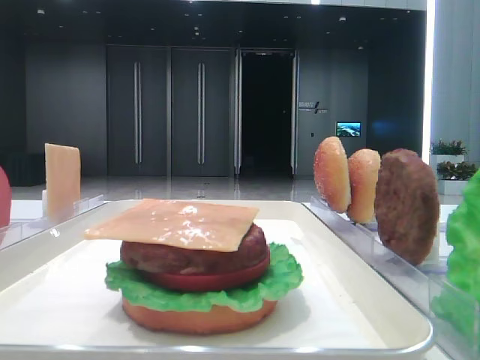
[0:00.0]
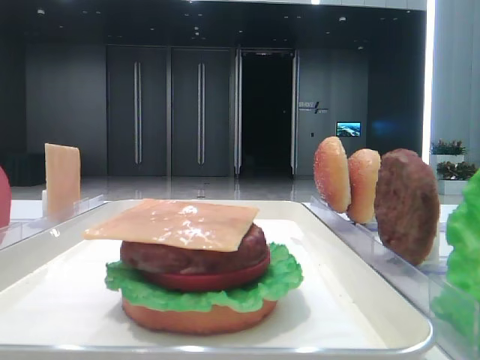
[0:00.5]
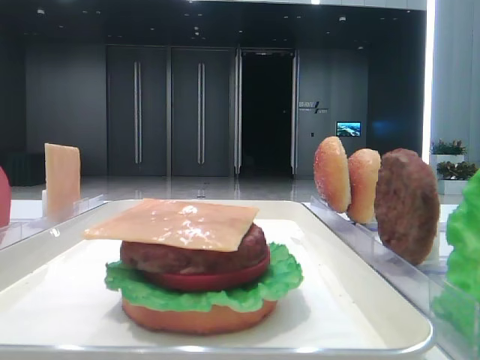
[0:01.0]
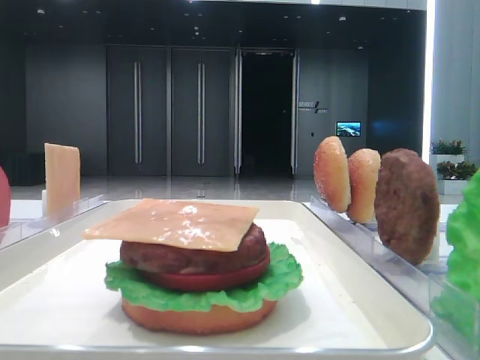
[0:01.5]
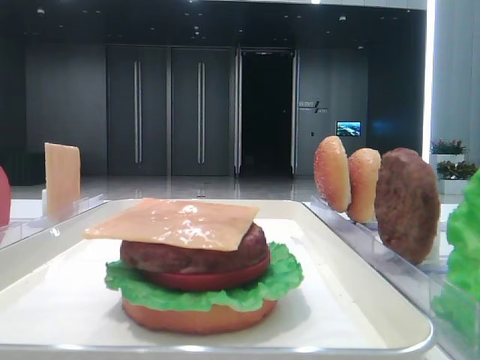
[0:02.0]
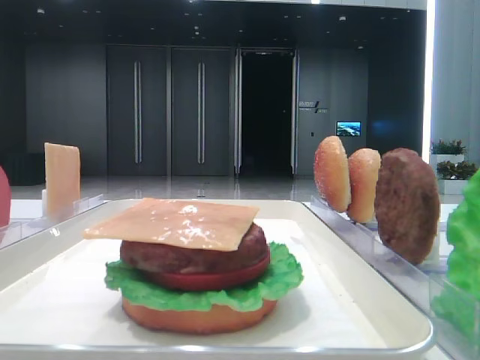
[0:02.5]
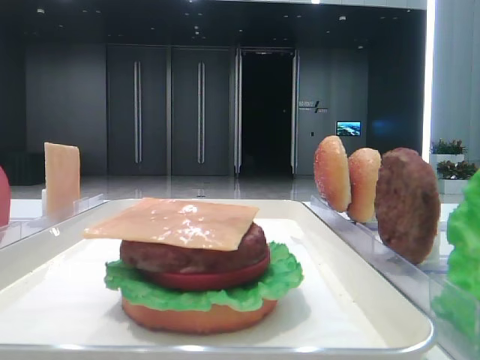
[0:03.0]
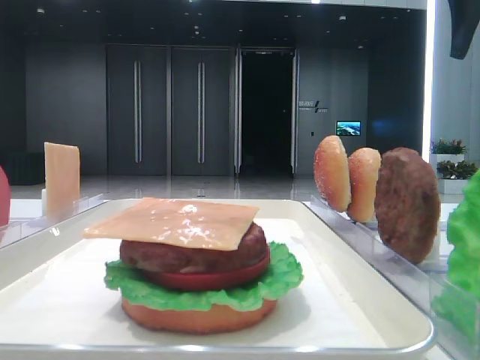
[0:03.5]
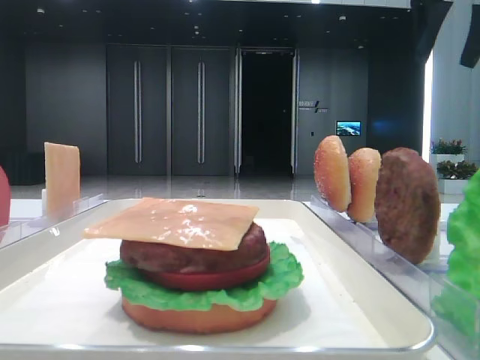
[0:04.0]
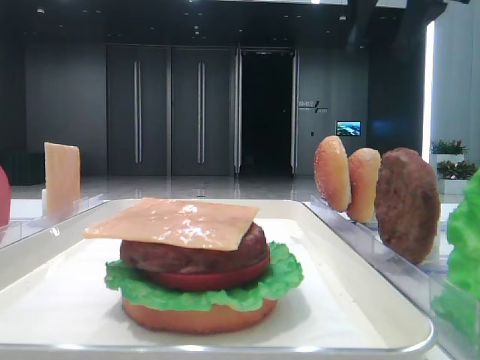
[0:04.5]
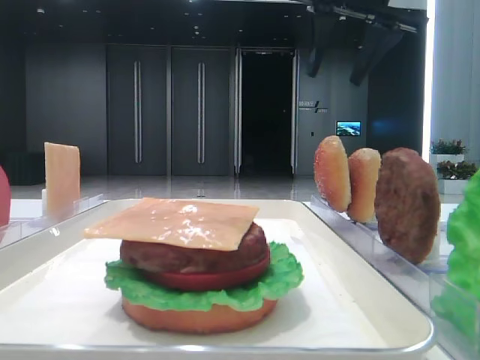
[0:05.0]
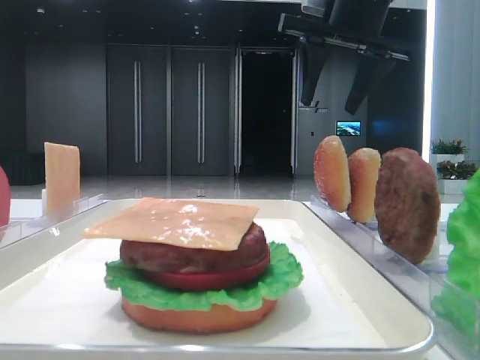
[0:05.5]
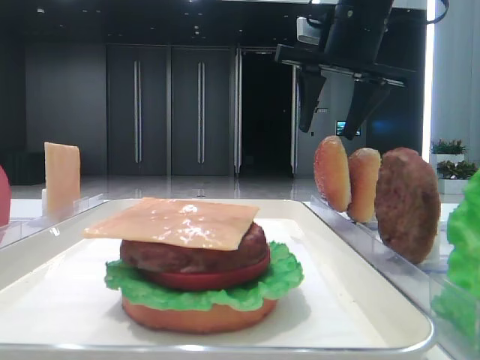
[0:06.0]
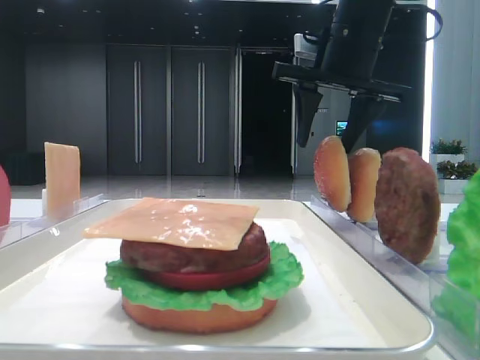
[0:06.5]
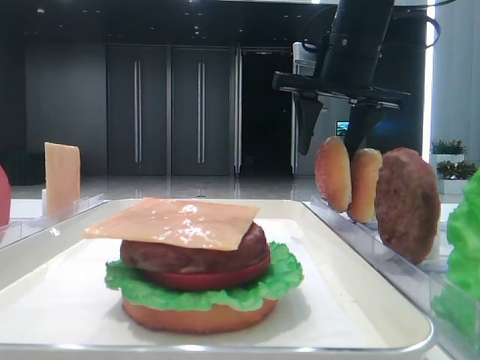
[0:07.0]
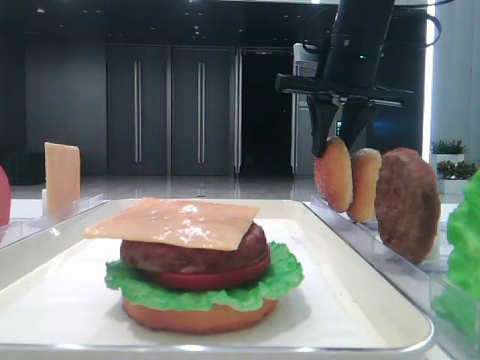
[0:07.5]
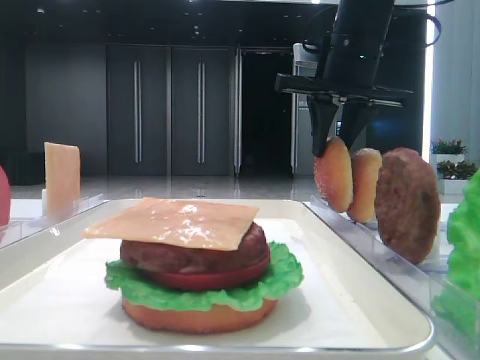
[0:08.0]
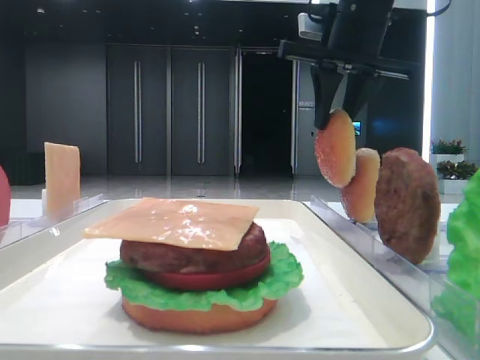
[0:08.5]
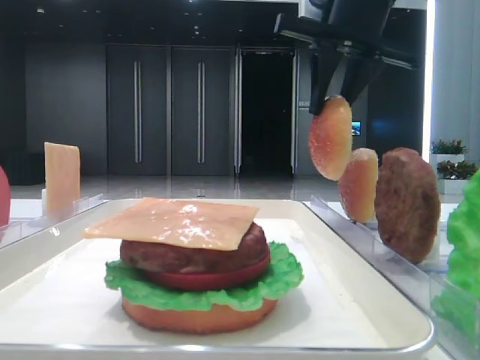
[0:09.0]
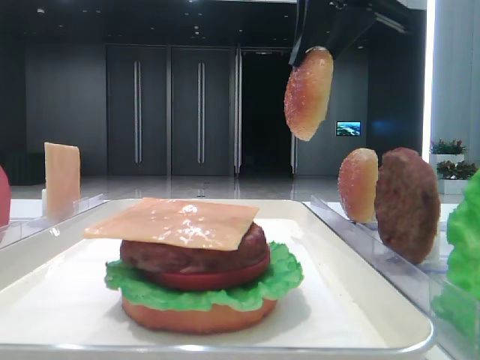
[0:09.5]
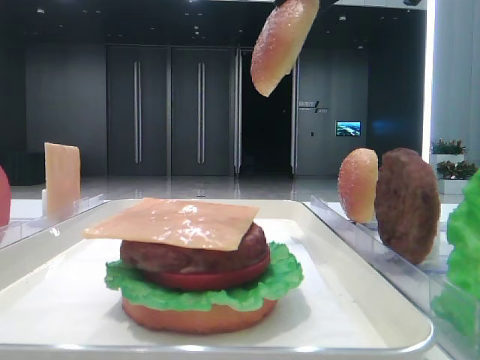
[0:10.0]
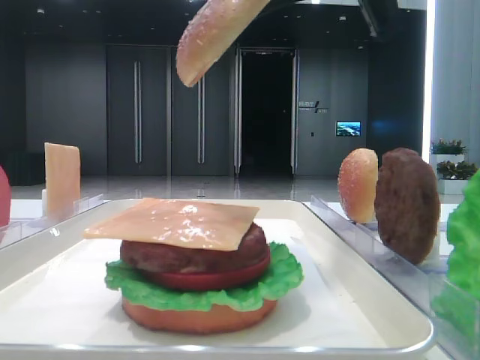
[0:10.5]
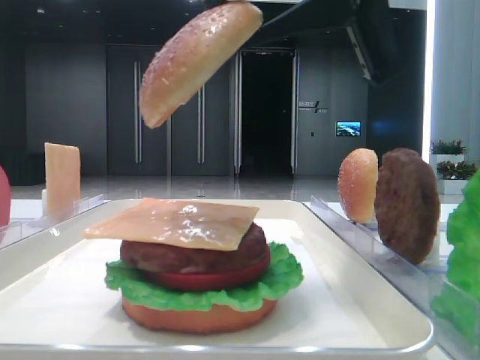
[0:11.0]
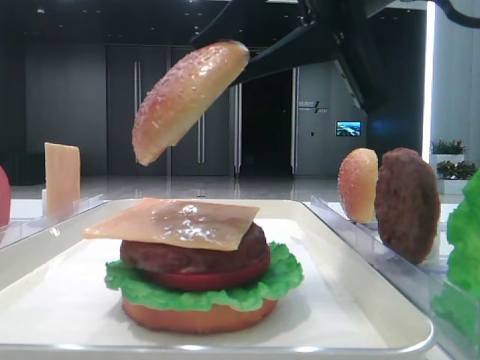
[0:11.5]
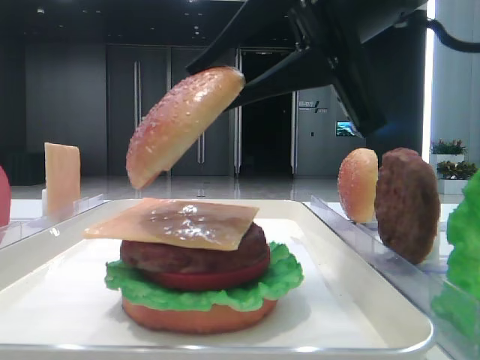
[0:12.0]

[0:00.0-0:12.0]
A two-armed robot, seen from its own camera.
Step, 0:00.0 to 0:07.5: Pick up the top bread slice with the right hand.
0:02.0 to 0:04.0: The right gripper heads forward, covering about 25 cm.
0:04.0 to 0:06.0: The right gripper moves to the left and downward, roughly 15 cm.
0:06.0 to 0:08.0: The right gripper closes up.
0:08.0 to 0:10.0: The right gripper travels backward and upward by roughly 15 cm.
0:10.0 to 0:12.0: The right gripper goes some 10 cm downward and backward.

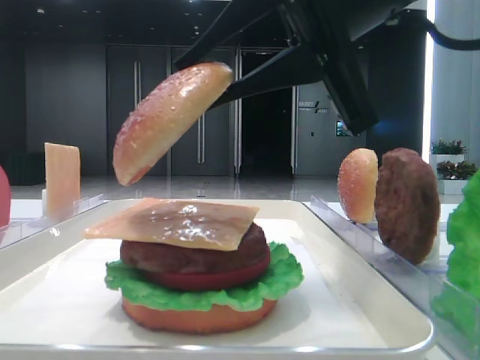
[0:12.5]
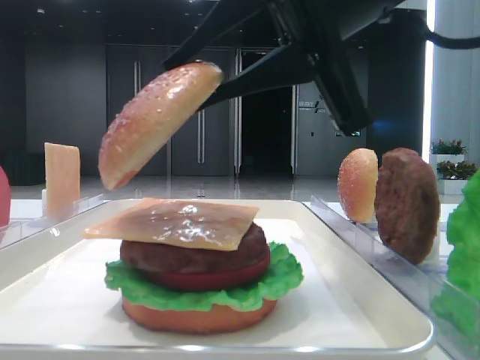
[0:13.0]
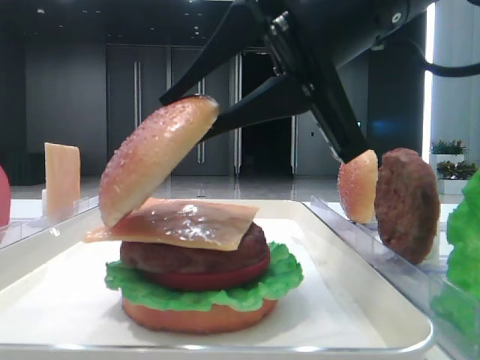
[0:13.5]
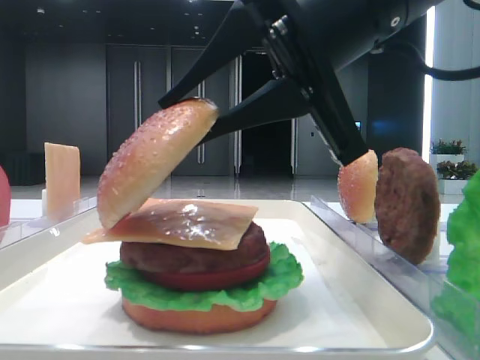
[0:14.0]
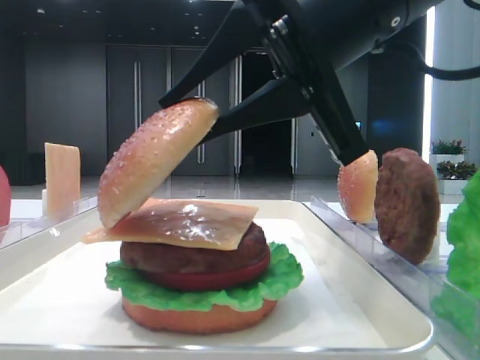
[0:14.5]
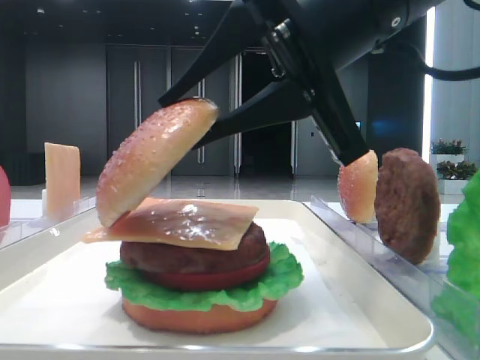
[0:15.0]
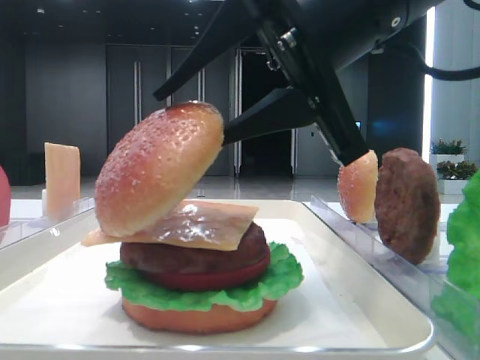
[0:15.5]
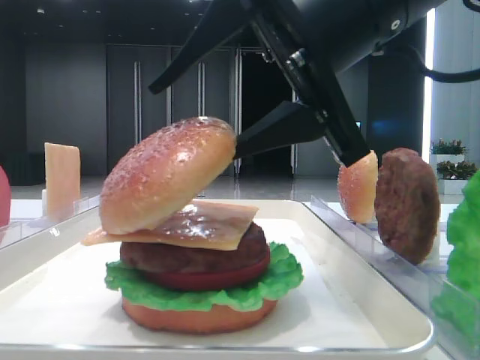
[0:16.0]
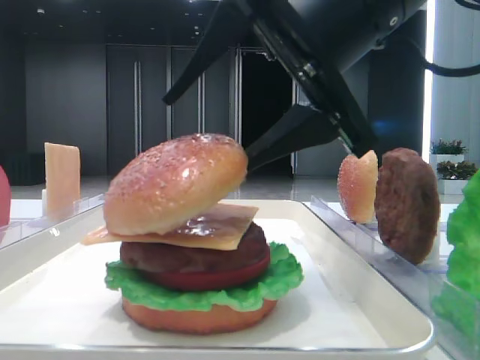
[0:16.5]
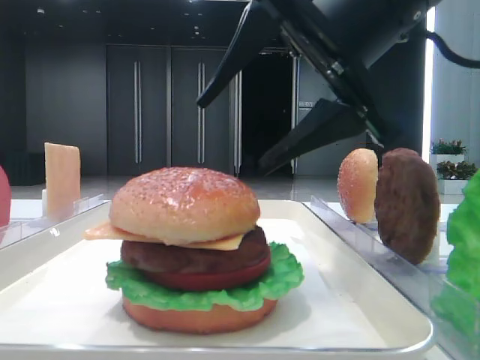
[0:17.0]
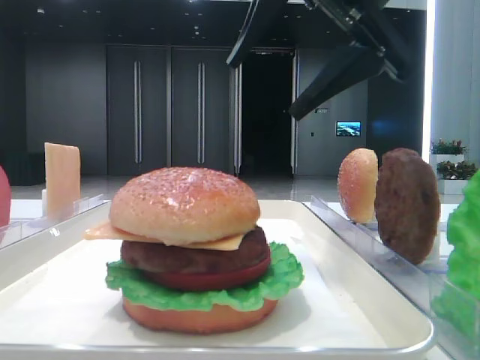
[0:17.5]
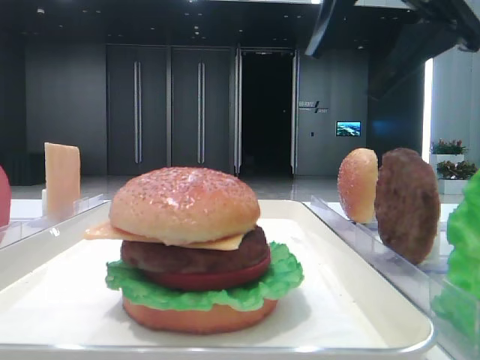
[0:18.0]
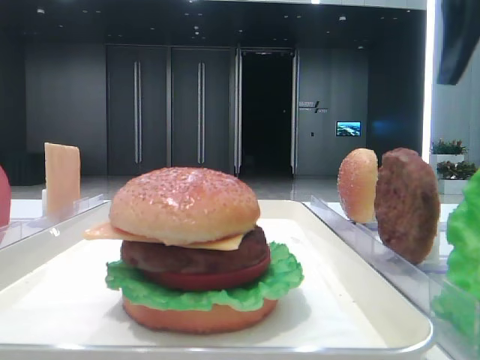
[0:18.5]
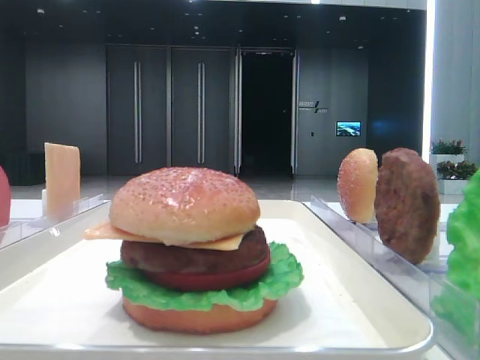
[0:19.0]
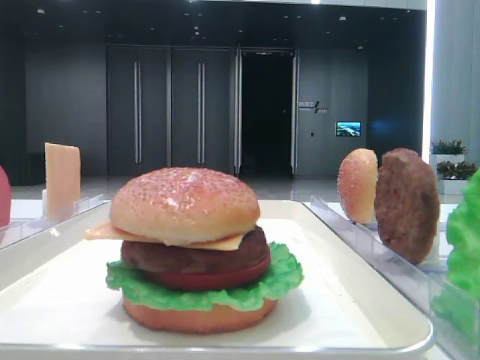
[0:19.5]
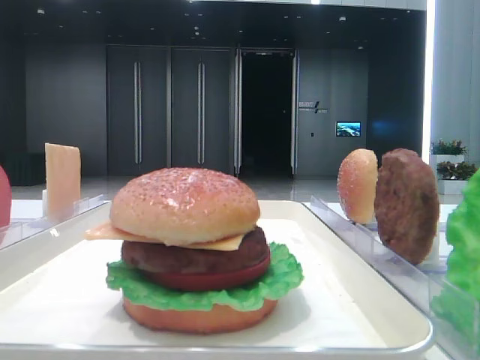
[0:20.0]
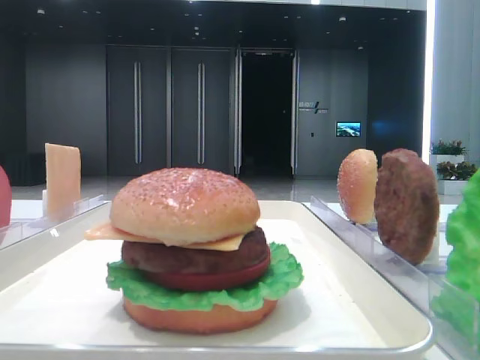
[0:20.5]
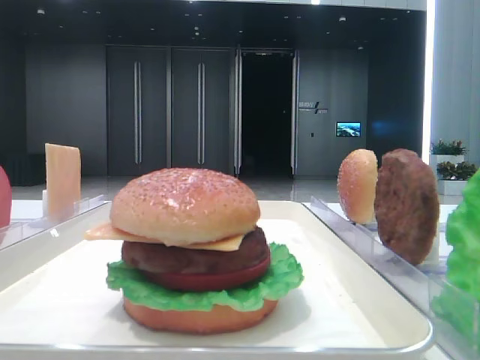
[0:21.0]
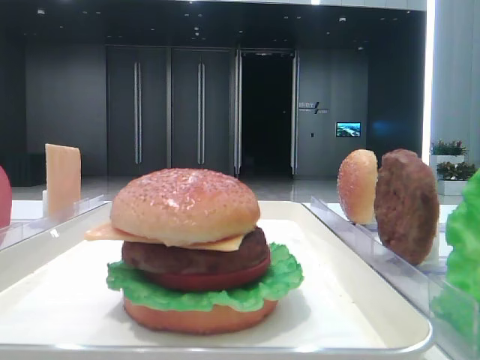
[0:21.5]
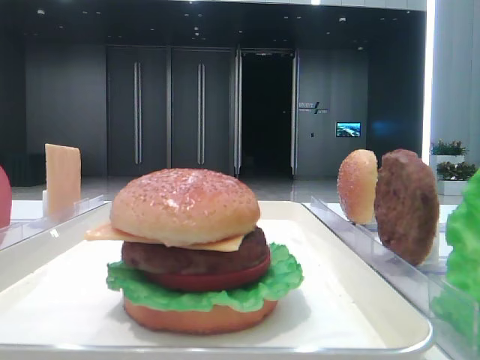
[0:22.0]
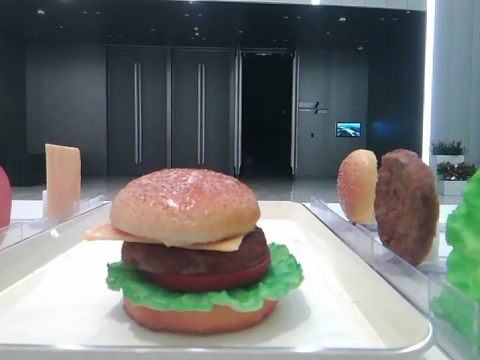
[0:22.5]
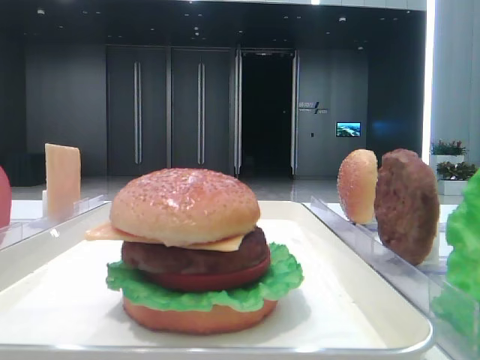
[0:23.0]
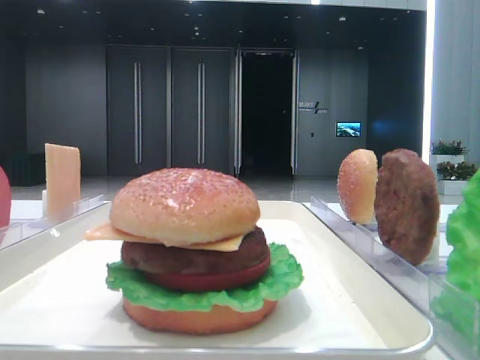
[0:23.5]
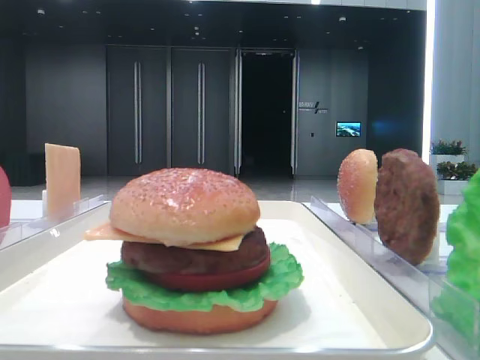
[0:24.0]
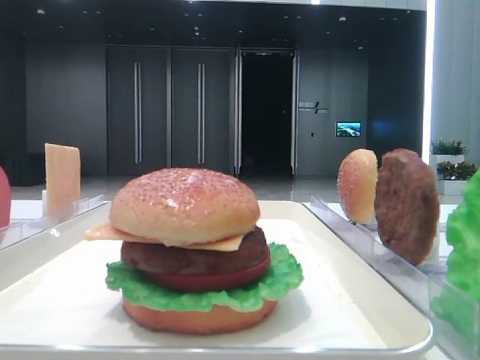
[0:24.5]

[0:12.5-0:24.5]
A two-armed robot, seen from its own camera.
Step, 0:12.5 to 0:16.5: Place the top bread slice on the cheese with the right hand.
0:12.5 to 0:14.5: The grippers make only small movements.
0:14.5 to 0:16.5: The right gripper opens.
0:16.5 to 0:18.5: The right gripper shifts approximately 20 cm to the right and upward.
0:18.5 to 0:20.5: The right gripper is displaced backward and to the right by approximately 10 cm.

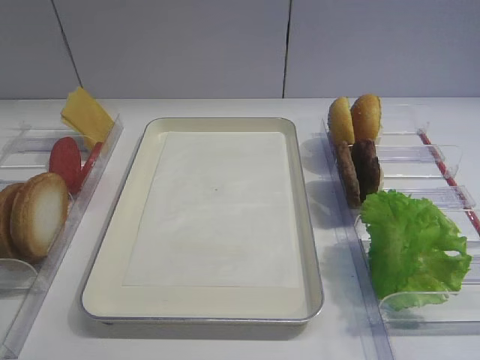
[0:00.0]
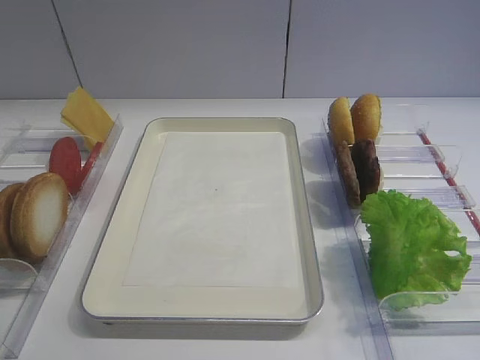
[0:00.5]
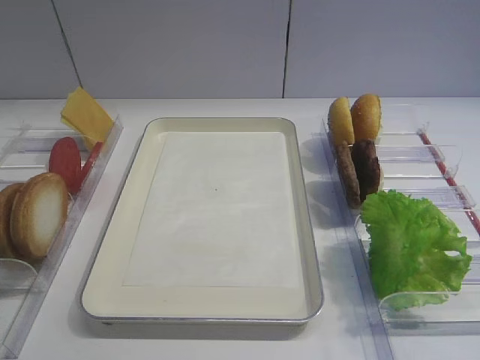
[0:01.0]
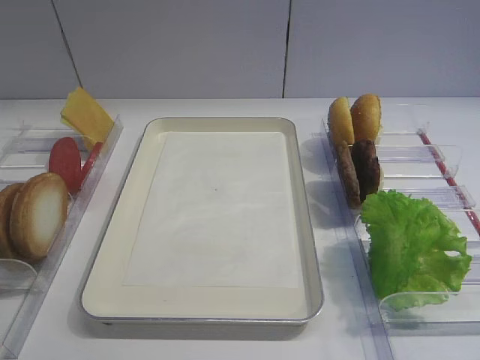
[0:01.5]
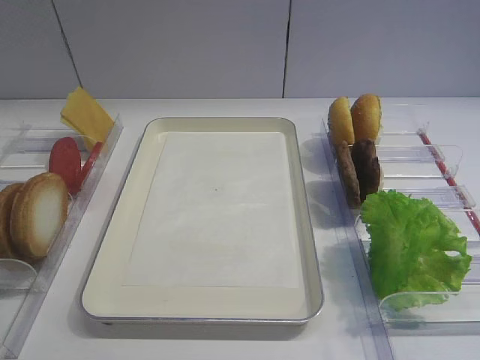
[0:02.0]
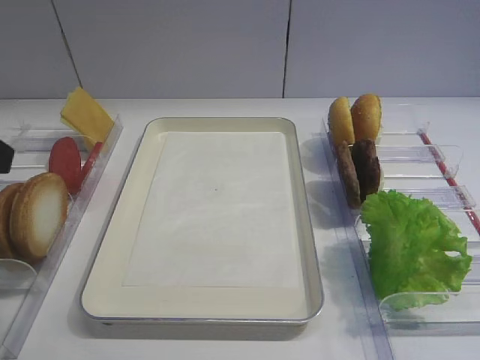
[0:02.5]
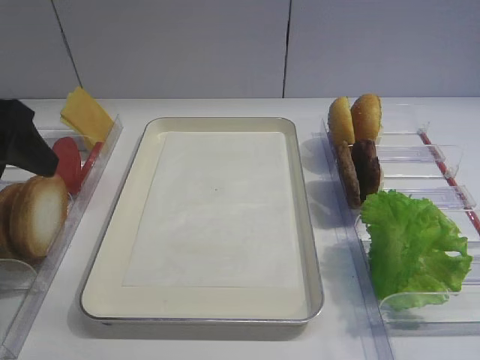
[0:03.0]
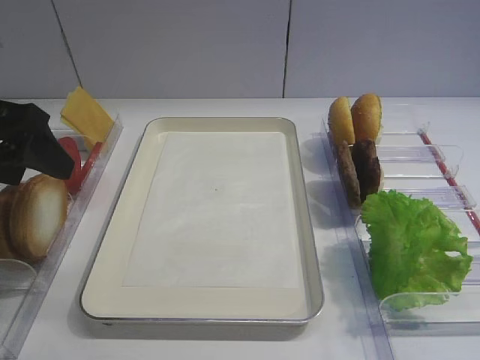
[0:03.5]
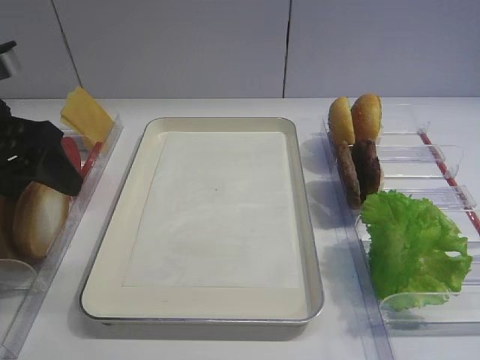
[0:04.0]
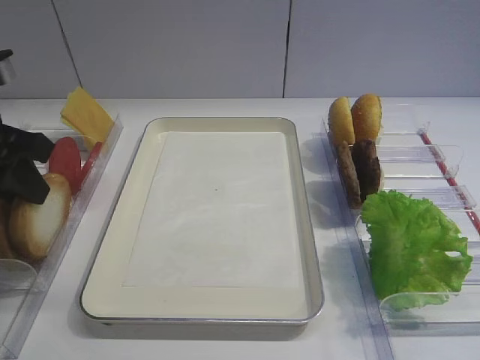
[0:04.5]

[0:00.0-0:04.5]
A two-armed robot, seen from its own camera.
0:02.0 to 0:04.5: The left gripper is displaced forward by roughly 25 cm, and closes.
